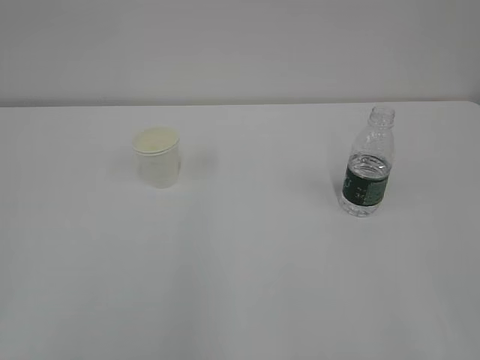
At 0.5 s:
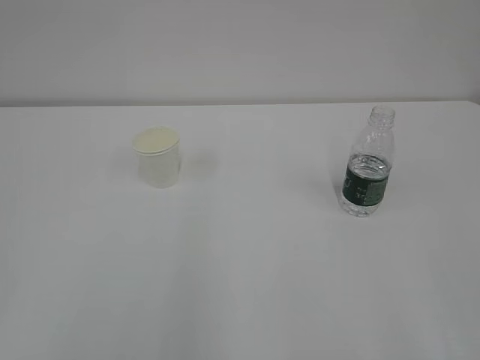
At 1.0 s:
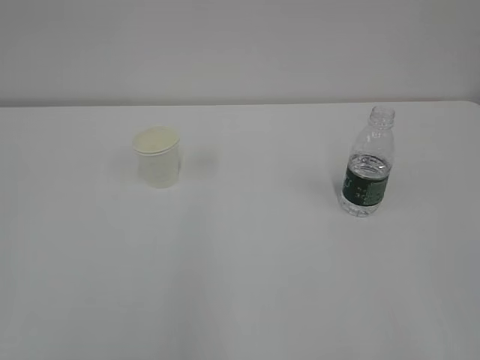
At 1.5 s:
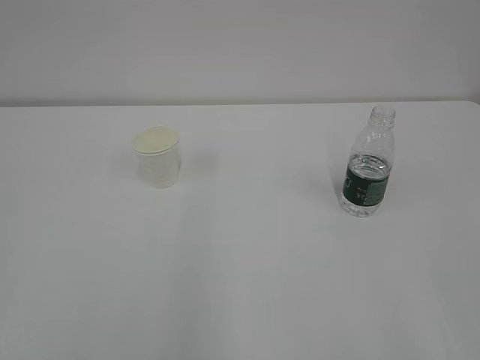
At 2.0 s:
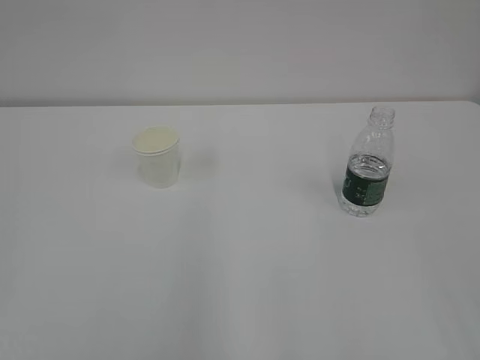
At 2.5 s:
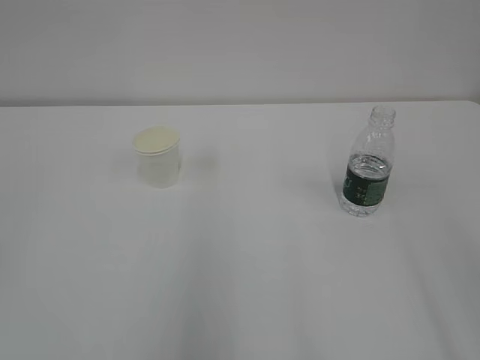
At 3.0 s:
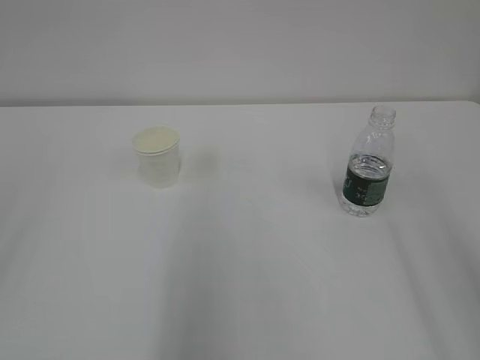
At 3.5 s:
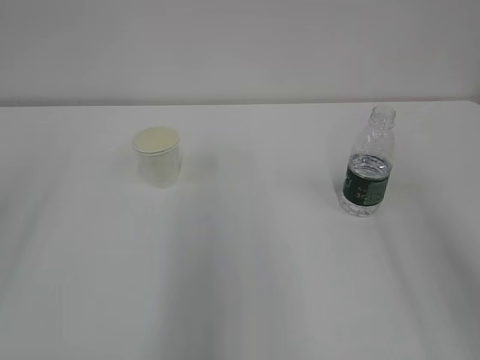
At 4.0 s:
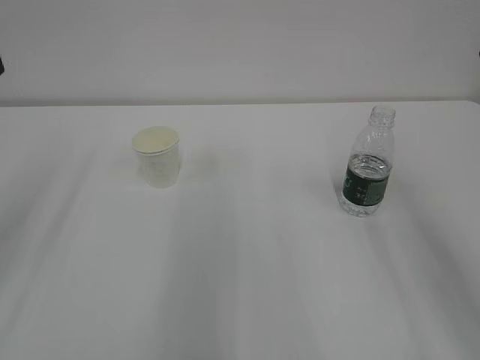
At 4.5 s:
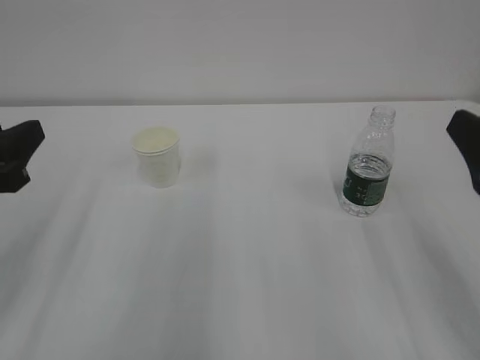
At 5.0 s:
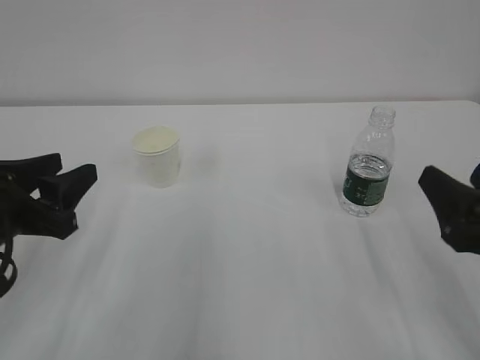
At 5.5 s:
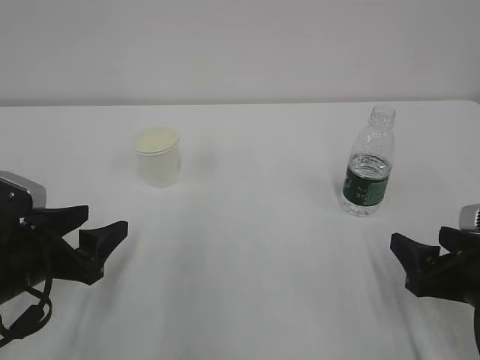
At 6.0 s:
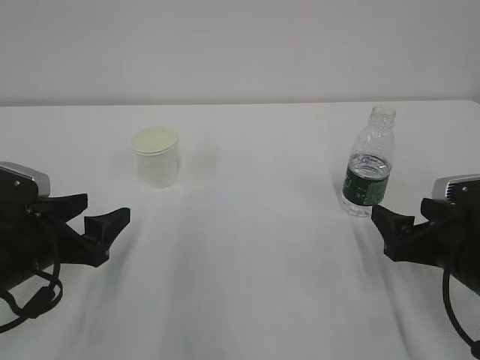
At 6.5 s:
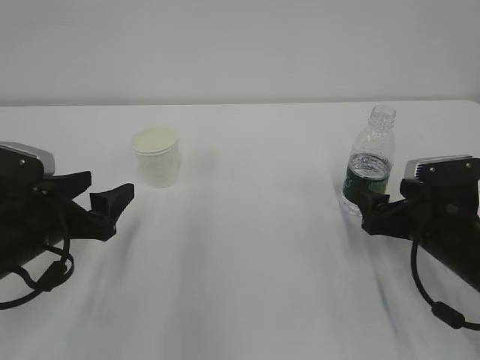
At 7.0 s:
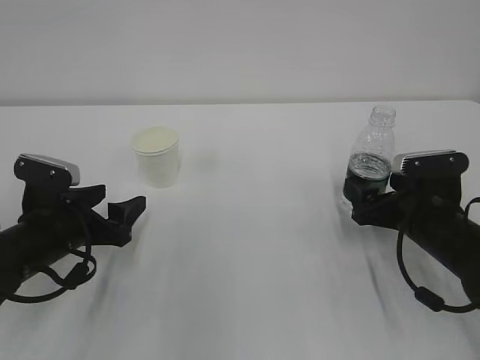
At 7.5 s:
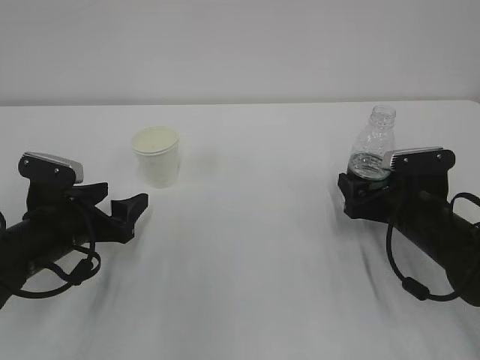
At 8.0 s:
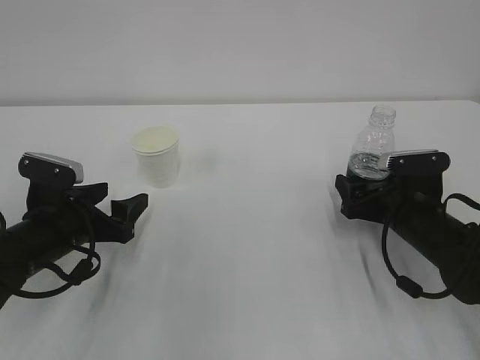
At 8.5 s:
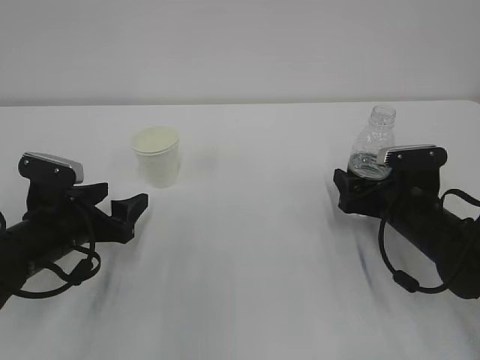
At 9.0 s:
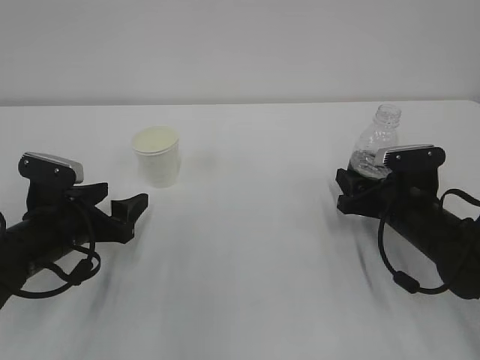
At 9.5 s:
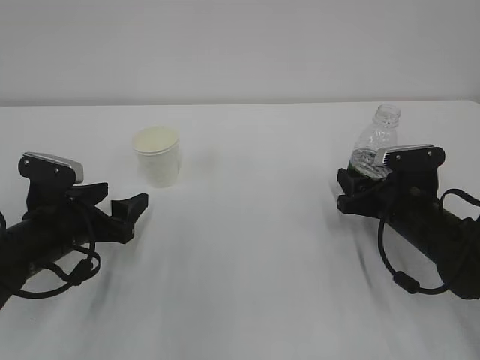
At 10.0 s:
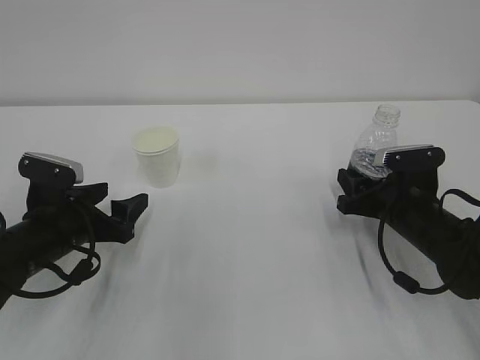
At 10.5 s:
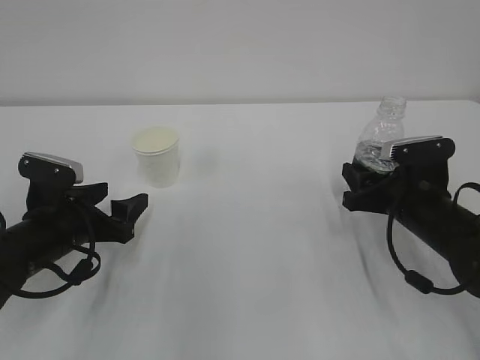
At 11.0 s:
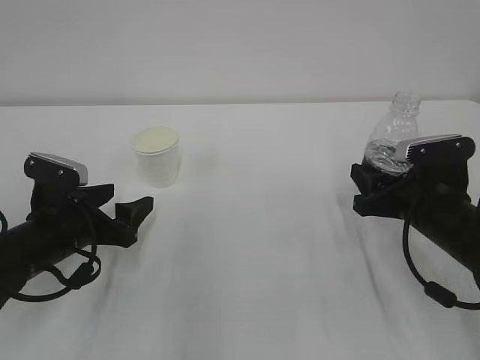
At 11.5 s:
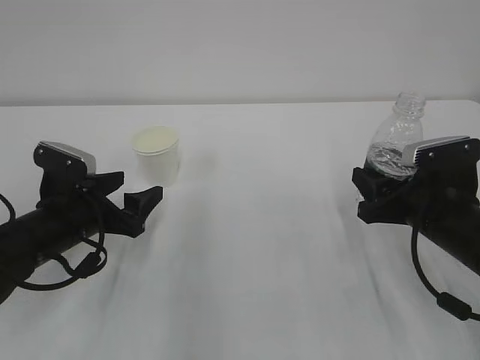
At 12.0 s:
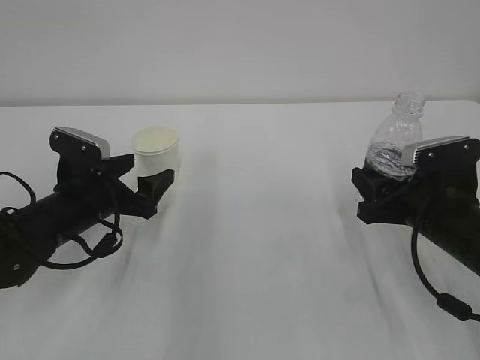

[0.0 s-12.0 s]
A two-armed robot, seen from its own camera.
4.0 to 6.0 s: Both grippers move downward, approximately 20 cm. The left gripper opens up.
6.0 to 8.0 s: The left gripper moves about 5 cm; the right gripper goes approximately 10 cm forward.
8.0 to 10.0 s: The right gripper closes up.
10.0 to 12.0 s: The right gripper heads backward, covering roughly 5 cm.

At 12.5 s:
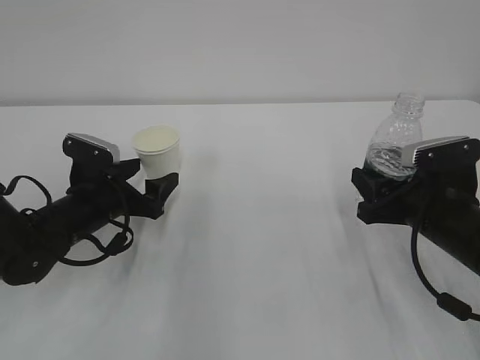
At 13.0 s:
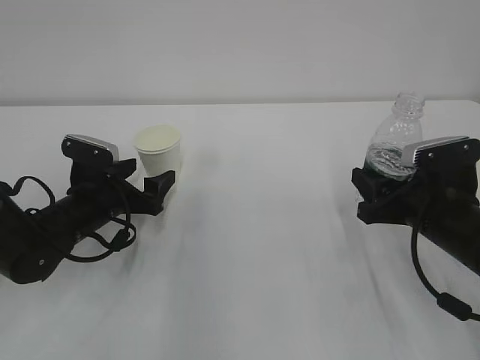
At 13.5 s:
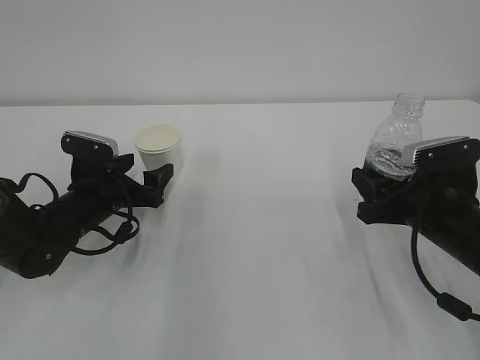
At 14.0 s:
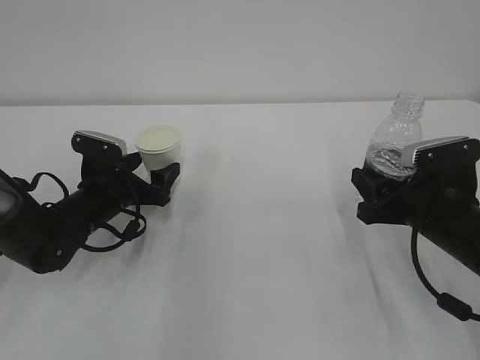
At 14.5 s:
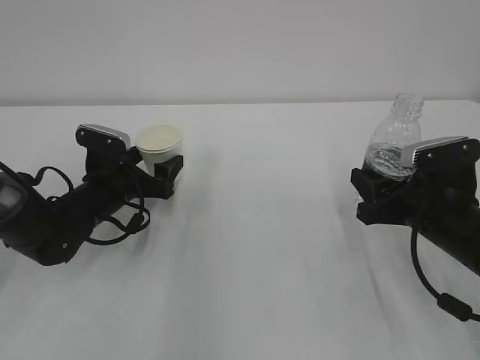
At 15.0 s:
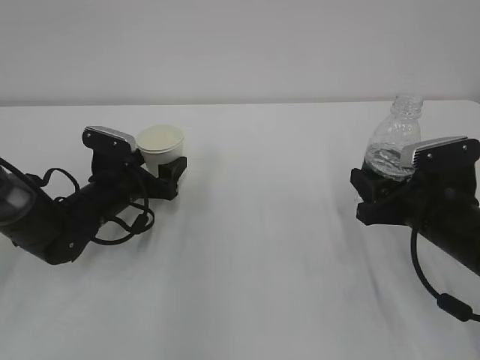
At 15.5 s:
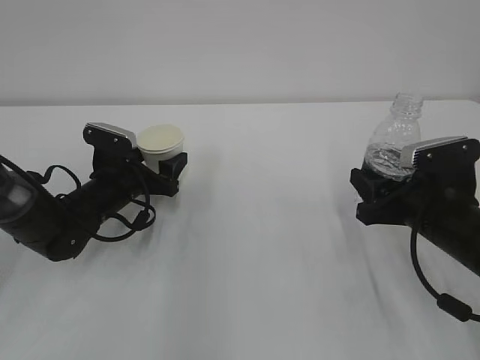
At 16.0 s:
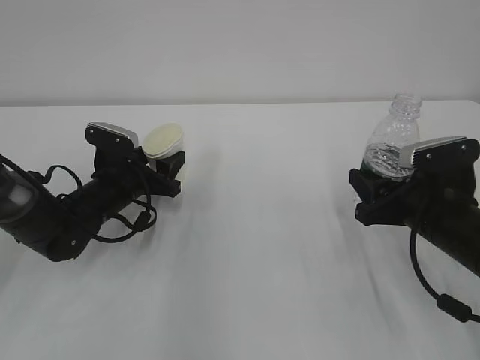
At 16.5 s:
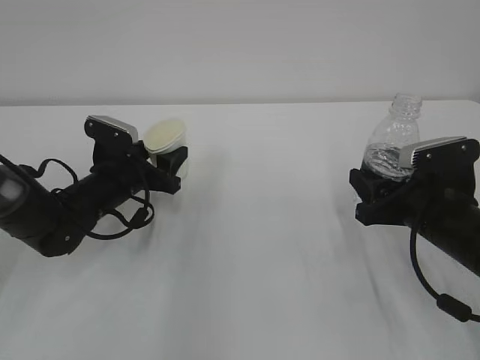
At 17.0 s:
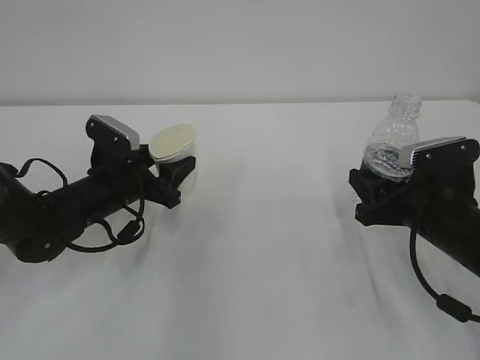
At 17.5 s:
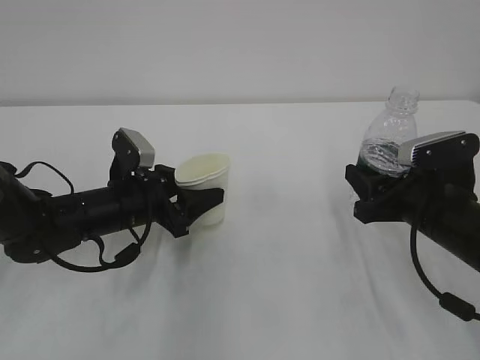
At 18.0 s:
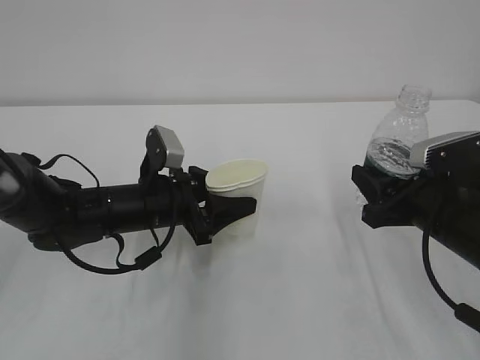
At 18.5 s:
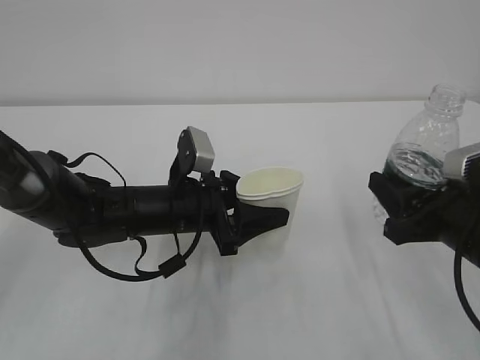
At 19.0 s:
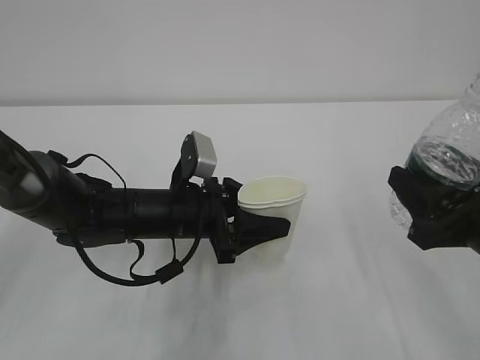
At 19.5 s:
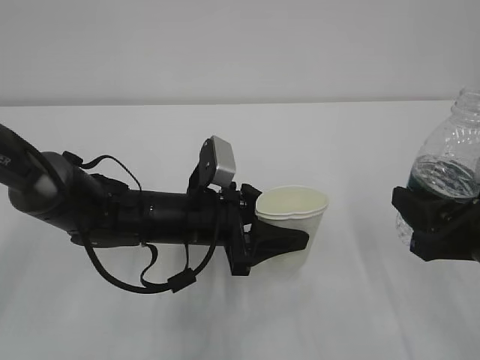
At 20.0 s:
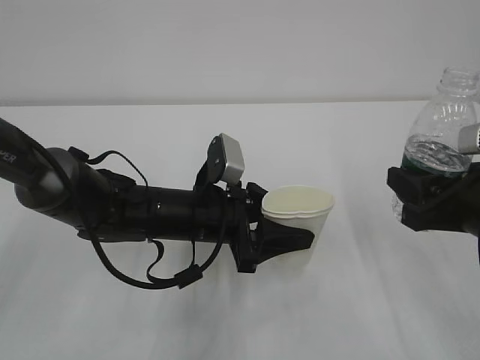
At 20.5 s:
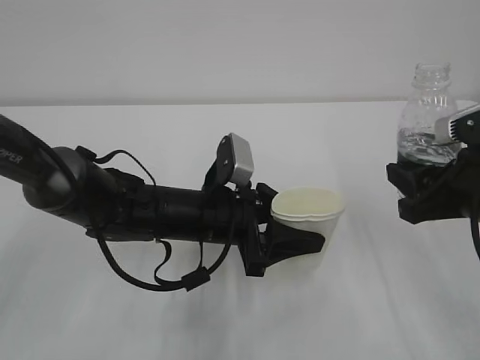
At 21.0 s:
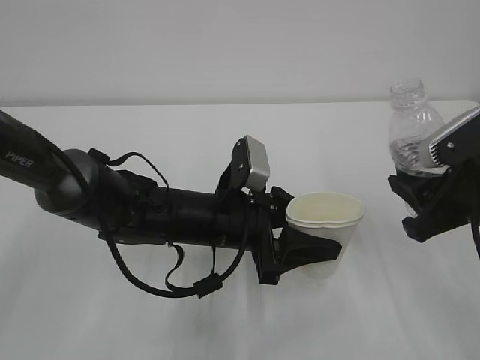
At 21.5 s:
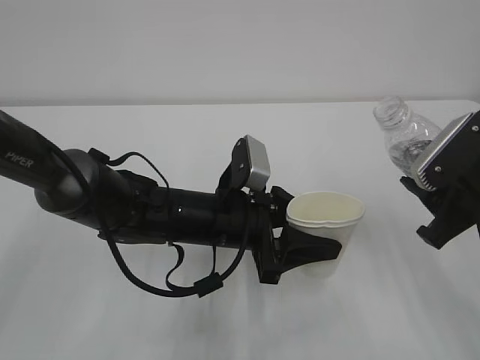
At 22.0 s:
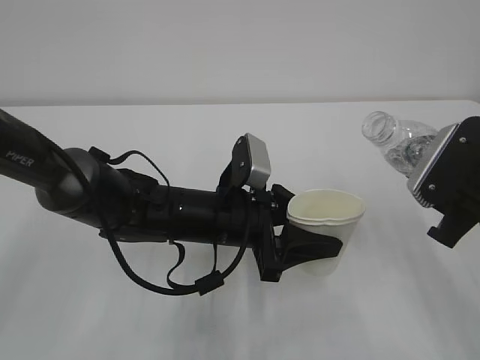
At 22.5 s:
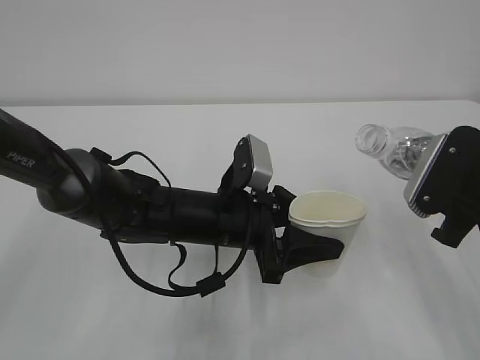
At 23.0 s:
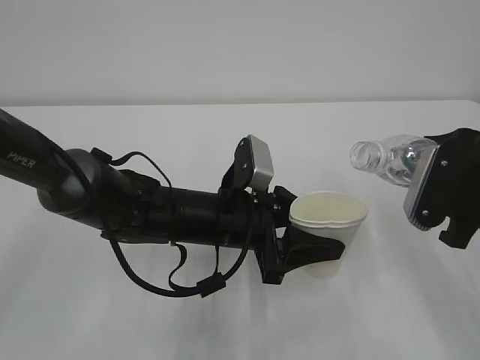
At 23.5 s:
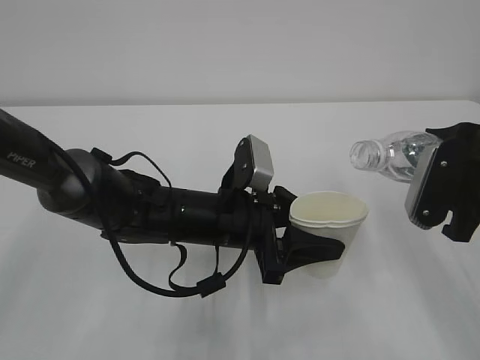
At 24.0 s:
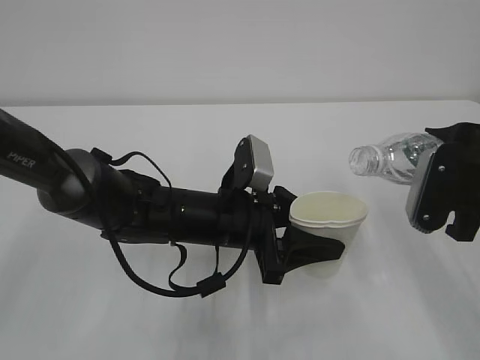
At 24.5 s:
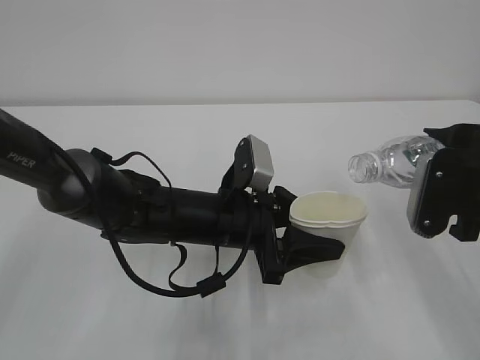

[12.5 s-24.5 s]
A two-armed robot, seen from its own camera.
12.5 to 14.5 s: There are only small adjustments of the grippers.
14.5 to 16.5 s: The left gripper closes its fingers.
16.5 to 18.5 s: The right gripper travels backward by approximately 5 cm, while the left gripper shifts about 10 cm to the right and backward.
18.5 to 20.5 s: The grippers make only small movements.
22.5 to 24.5 s: The grippers make only small movements.

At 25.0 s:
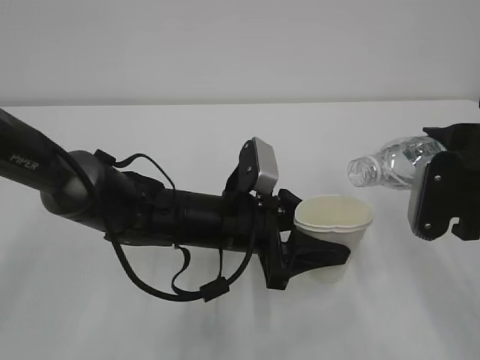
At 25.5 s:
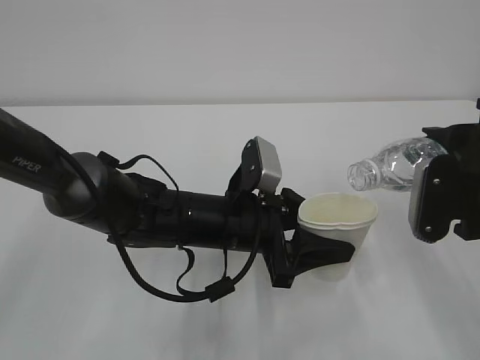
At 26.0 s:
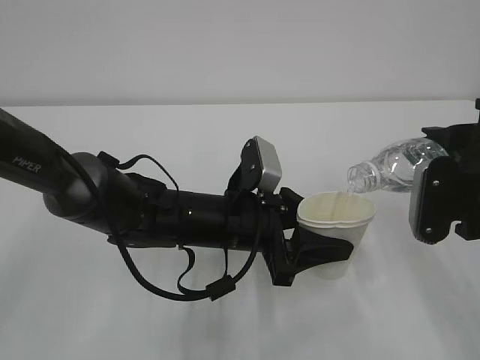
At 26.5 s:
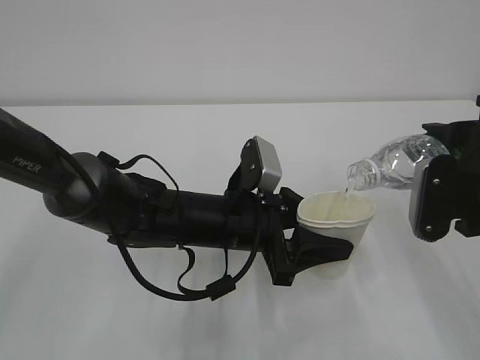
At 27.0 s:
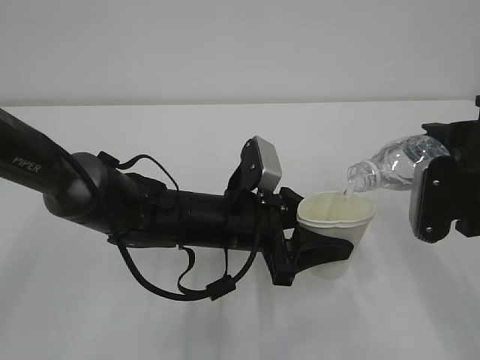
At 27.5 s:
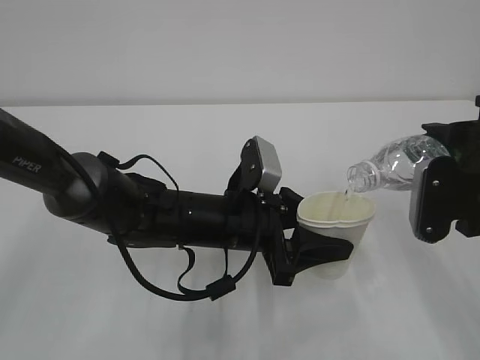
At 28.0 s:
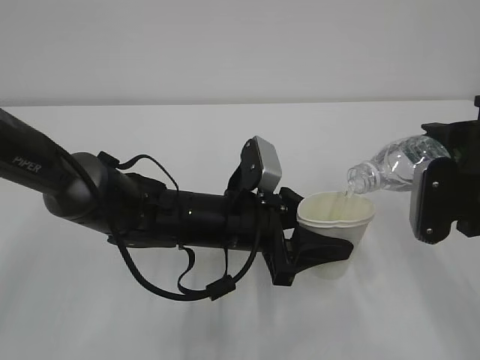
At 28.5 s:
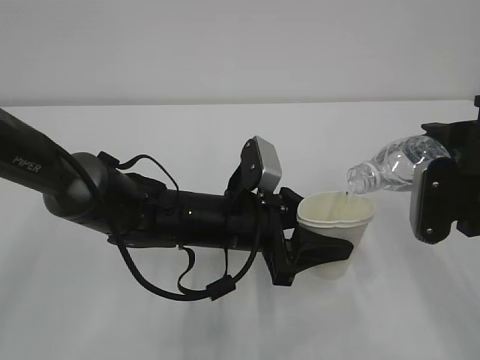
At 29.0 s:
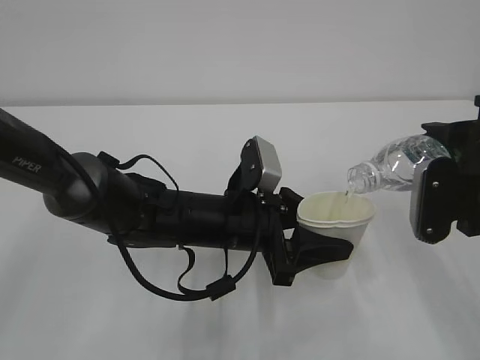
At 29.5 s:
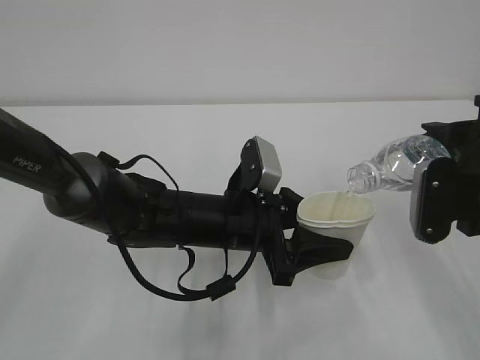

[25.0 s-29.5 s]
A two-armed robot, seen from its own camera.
25.0 to 27.0 s: Both grippers stay about where they are.
27.0 to 29.5 s: The two grippers keep their place.
